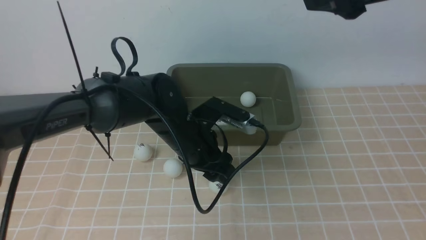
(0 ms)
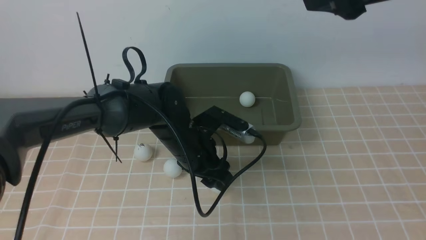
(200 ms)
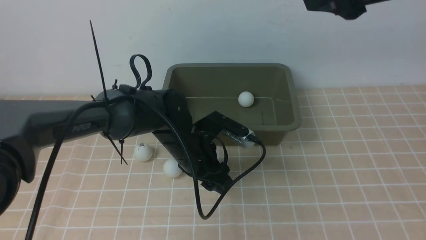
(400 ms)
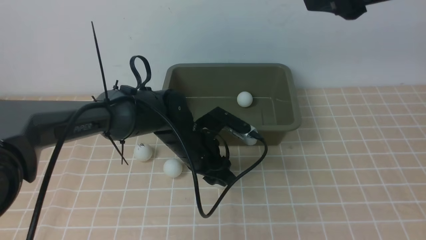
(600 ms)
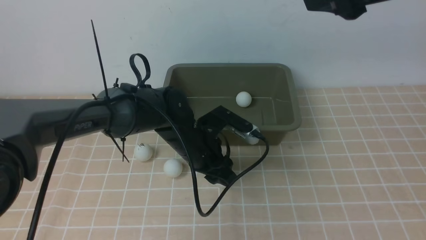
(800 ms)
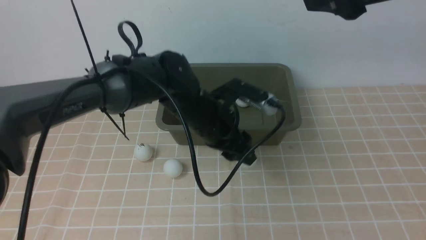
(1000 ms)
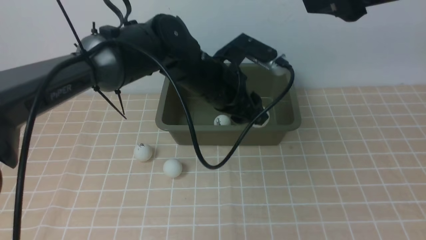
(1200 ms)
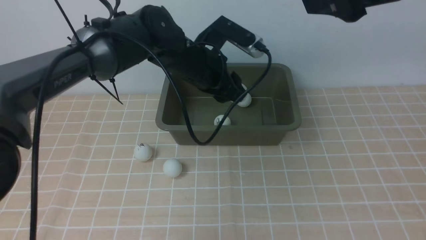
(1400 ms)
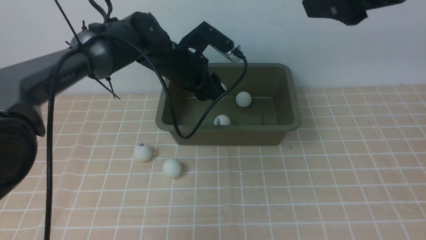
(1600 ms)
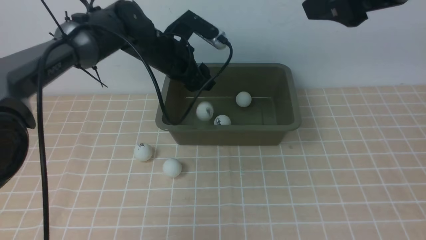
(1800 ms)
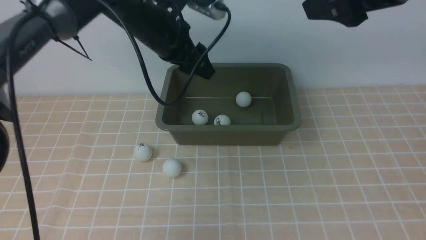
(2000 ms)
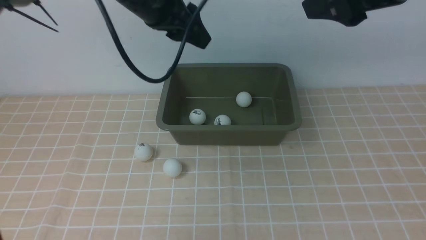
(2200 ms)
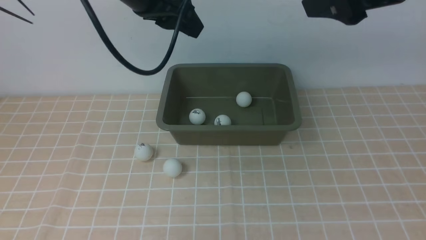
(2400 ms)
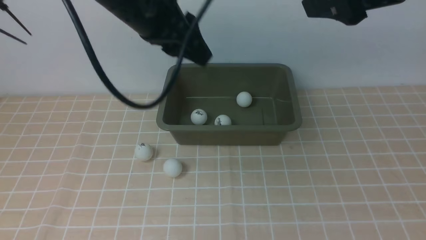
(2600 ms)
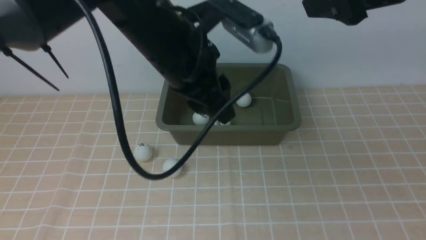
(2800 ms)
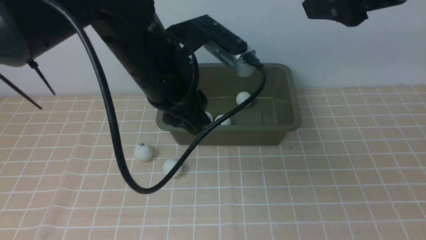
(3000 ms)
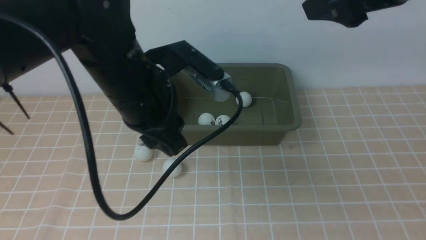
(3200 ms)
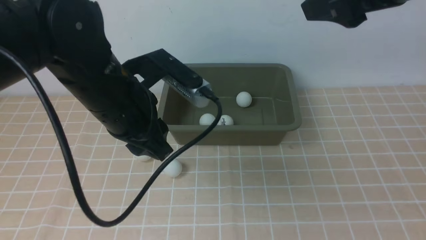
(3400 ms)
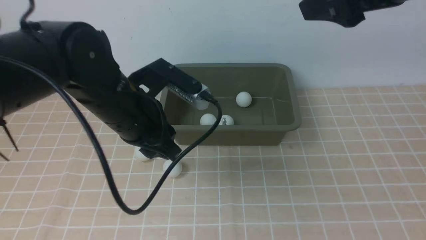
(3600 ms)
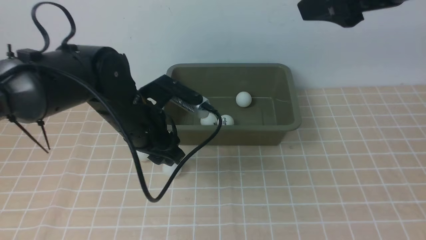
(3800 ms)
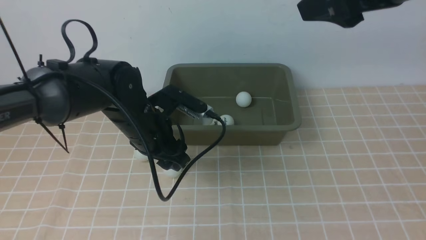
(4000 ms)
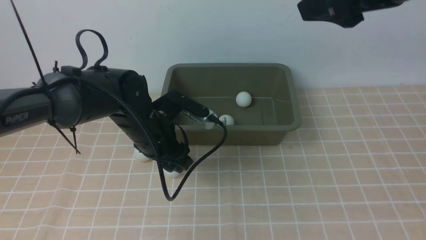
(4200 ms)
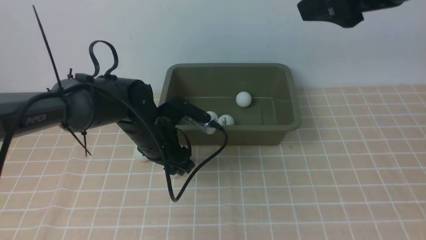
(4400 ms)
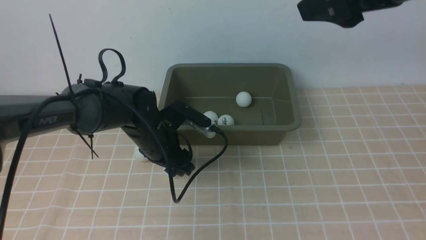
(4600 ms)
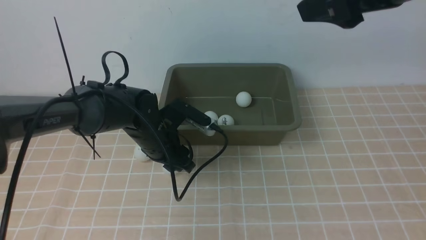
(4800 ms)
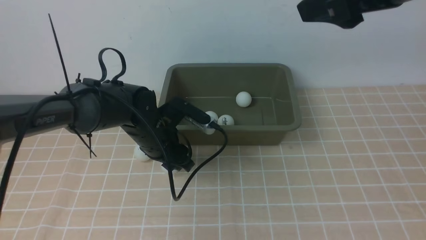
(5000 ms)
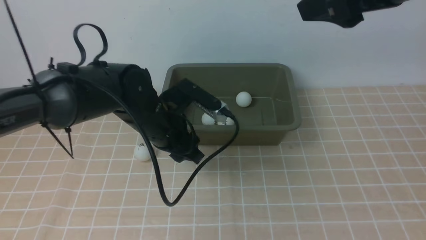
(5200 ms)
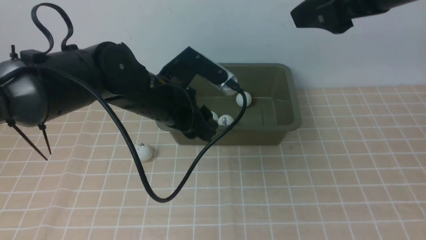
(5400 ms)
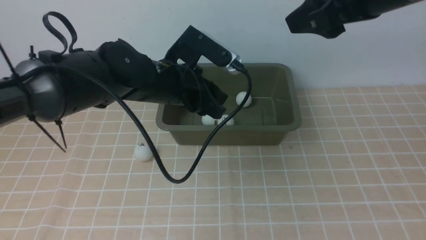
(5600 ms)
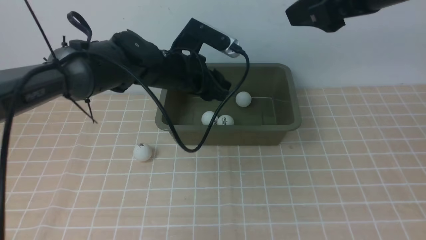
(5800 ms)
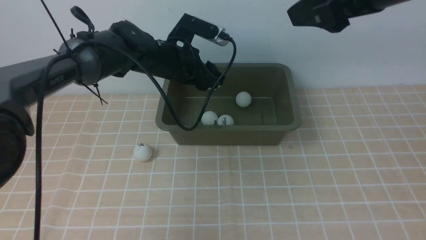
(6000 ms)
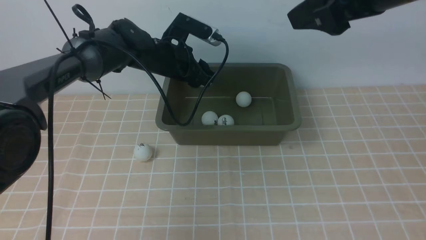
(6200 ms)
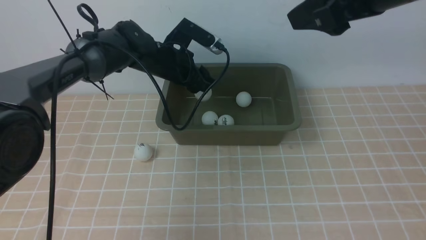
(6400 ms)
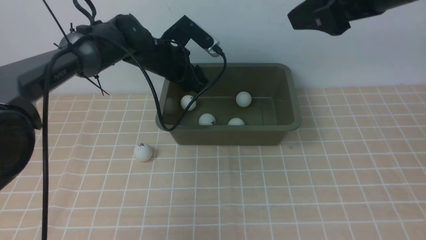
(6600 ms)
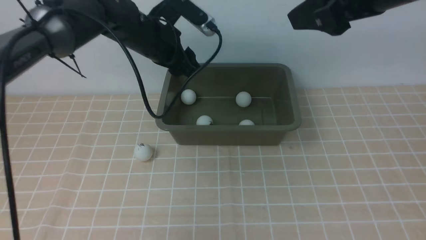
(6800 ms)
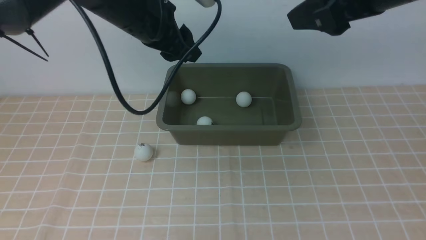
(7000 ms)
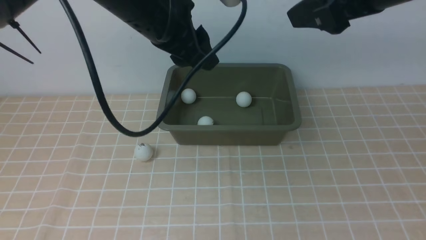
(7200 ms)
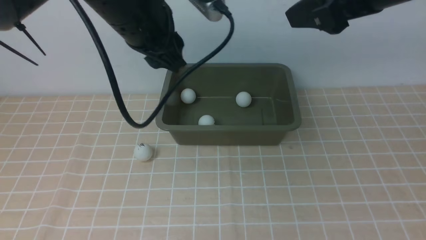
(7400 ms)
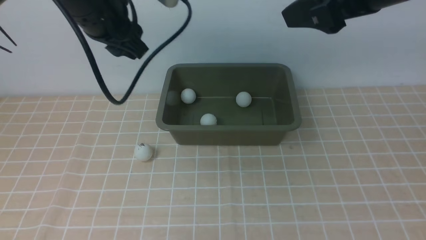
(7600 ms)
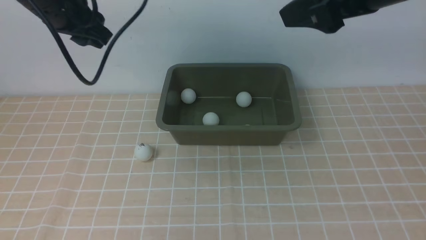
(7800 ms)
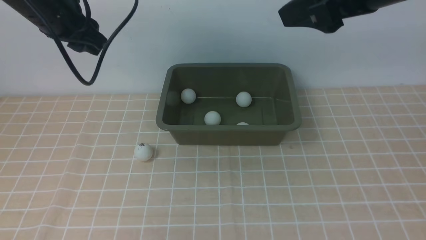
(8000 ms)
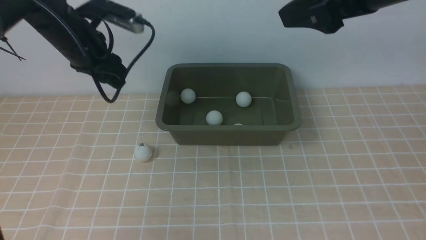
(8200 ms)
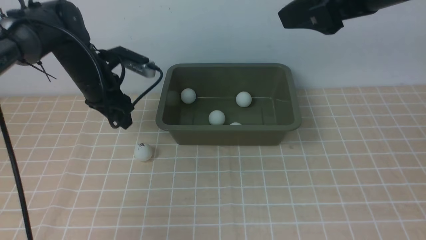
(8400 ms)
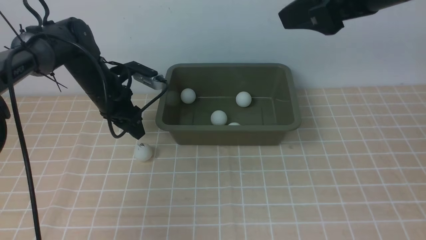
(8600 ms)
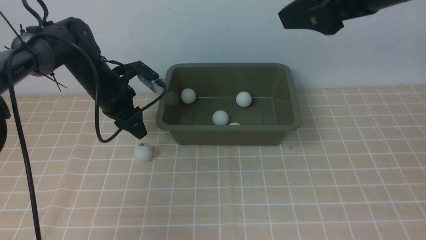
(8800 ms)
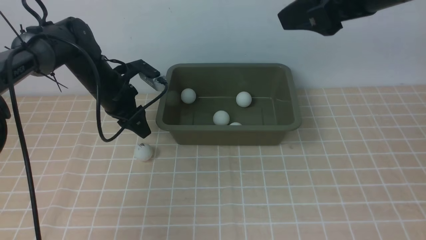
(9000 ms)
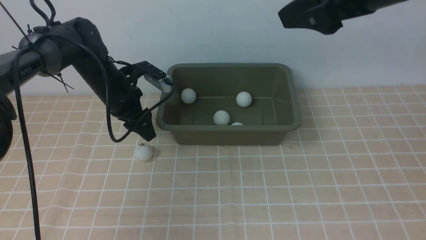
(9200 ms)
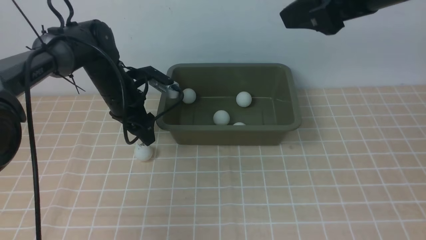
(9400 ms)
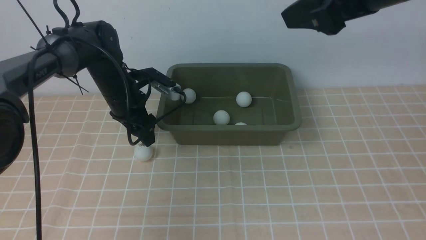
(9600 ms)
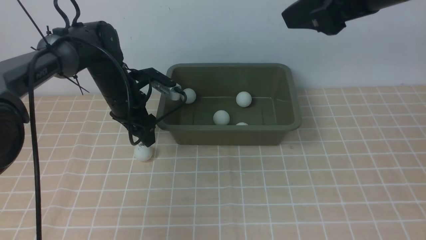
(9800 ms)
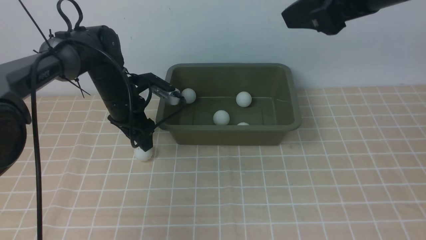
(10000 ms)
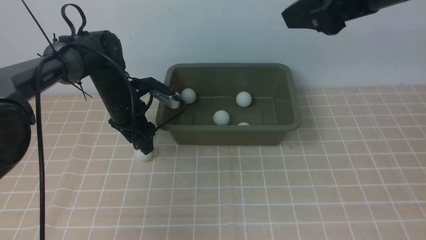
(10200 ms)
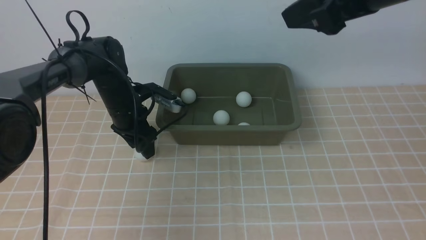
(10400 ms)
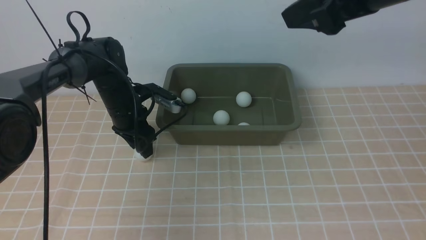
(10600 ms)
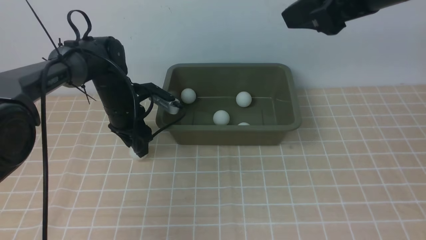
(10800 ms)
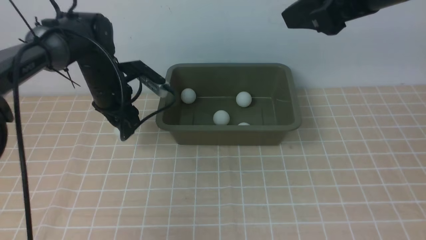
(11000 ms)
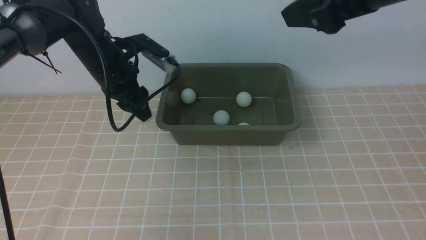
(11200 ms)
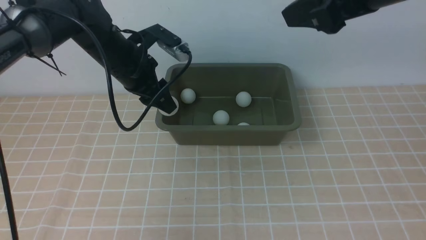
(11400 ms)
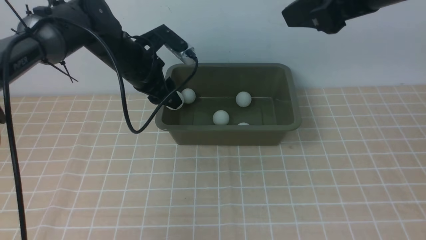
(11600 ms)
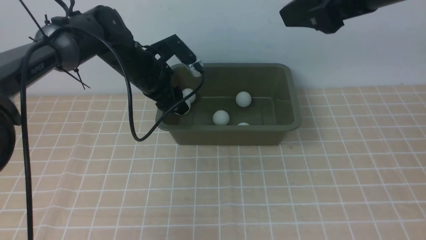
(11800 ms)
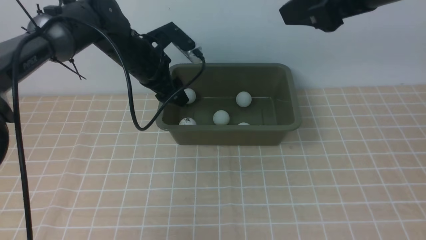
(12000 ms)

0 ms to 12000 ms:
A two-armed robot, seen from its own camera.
Step, 1400 ms to 2200 ms: use the left arm to put the table tennis ball into the box.
Step, 2400 ms to 5000 ms: use the left arm to clamp the table tennis ball closest to it.
Step, 5200 ms to 6800 ms: use the left arm to put the table tennis ball into the box.
Step, 7000 ms to 11000 ms: use the left arm to clamp the table tennis ball closest to it.
0 ms to 1600 ms: The left gripper moves forward and upward, about 15 cm.
1600 ms to 3000 ms: The left gripper moves backward and upward, roughly 20 cm, and closes its fingers.
3000 ms to 4400 ms: The left gripper goes some 15 cm downward, and opens.
4400 ms to 6000 ms: The left gripper is displaced forward and upward by approximately 10 cm, and closes.
6000 ms to 7600 ms: The left gripper moves upward, to the left and backward, some 20 cm.
7600 ms to 9000 ms: The left gripper travels downward by about 20 cm.
9000 ms to 10400 ms: There are only small adjustments of the grippers.
10400 ms to 12000 ms: The left gripper heads upward, covering about 10 cm, and closes, then opens again.

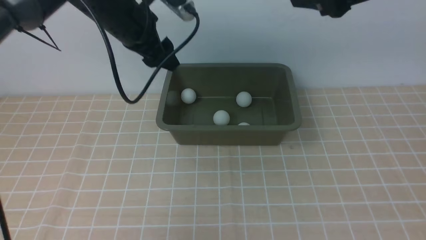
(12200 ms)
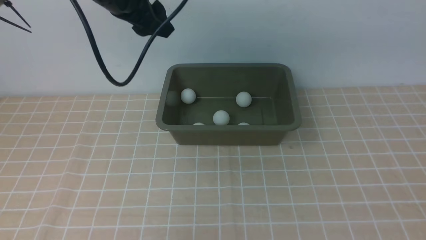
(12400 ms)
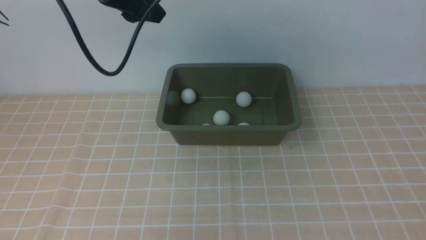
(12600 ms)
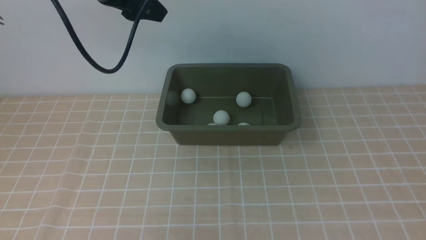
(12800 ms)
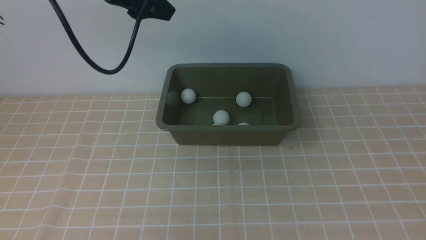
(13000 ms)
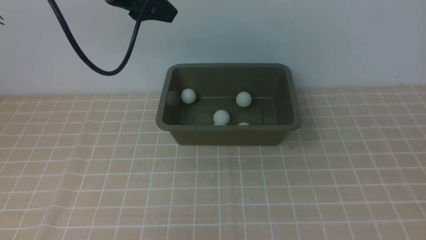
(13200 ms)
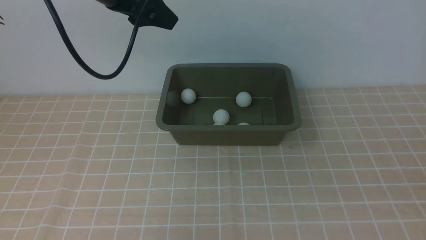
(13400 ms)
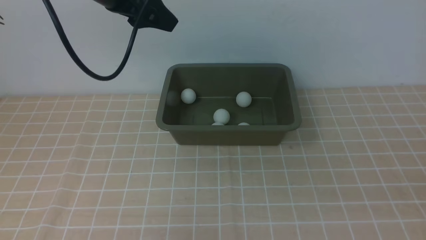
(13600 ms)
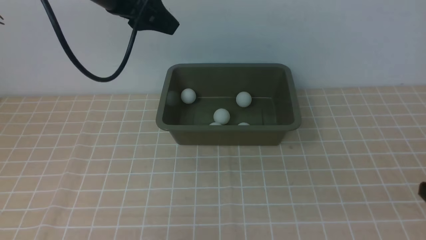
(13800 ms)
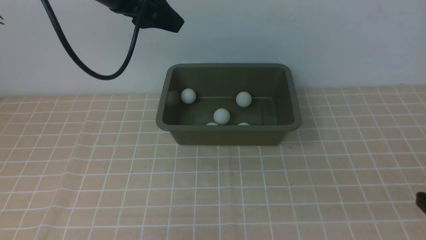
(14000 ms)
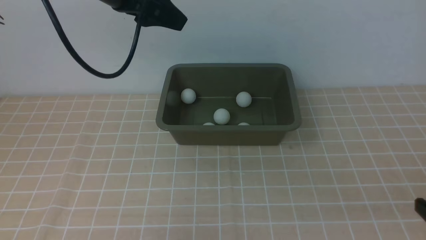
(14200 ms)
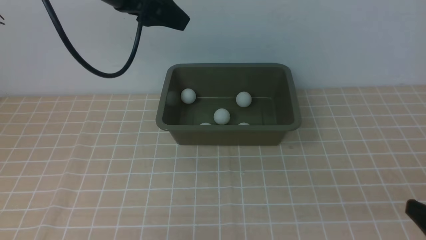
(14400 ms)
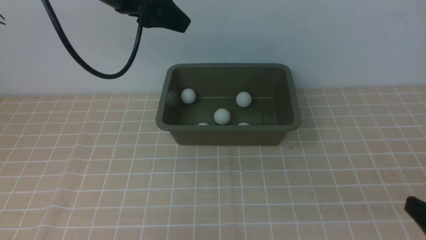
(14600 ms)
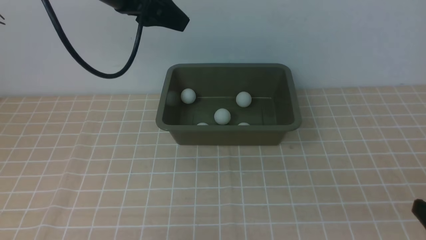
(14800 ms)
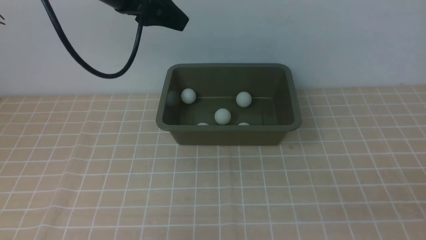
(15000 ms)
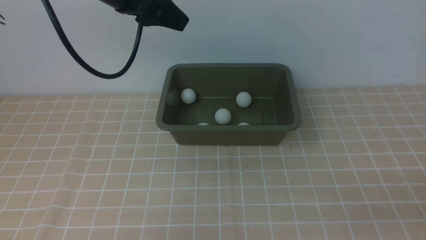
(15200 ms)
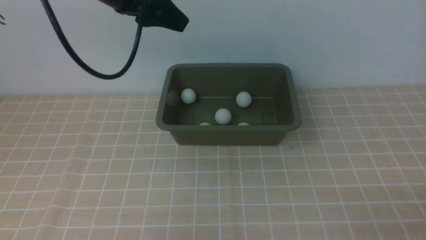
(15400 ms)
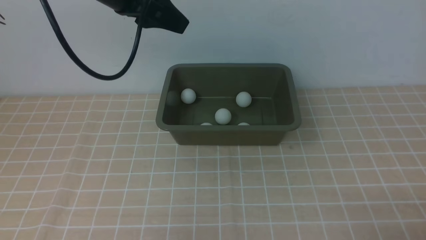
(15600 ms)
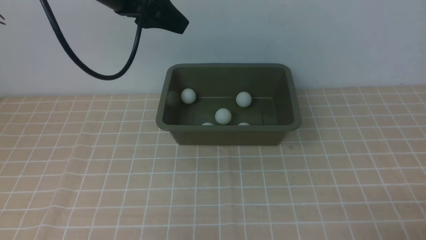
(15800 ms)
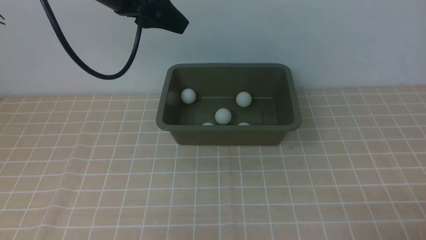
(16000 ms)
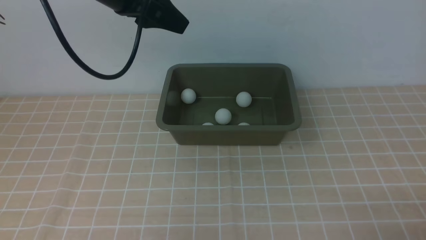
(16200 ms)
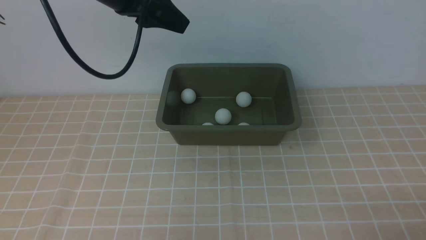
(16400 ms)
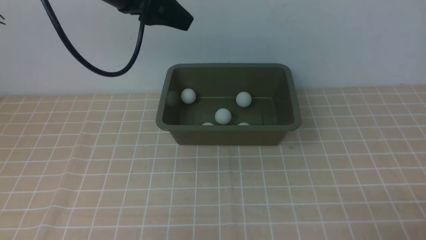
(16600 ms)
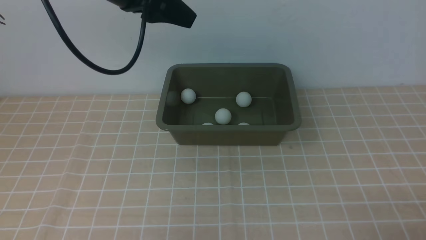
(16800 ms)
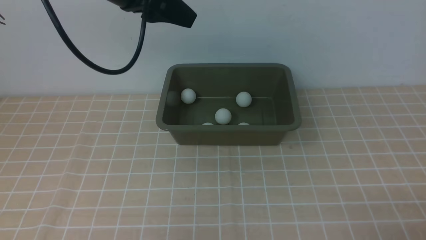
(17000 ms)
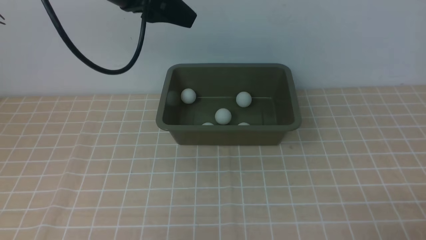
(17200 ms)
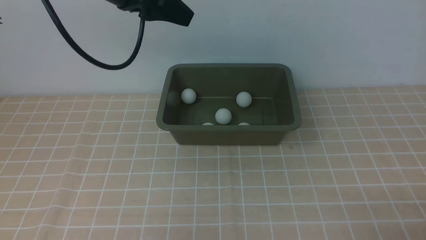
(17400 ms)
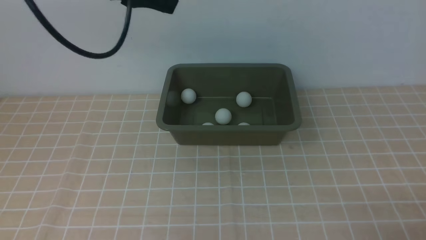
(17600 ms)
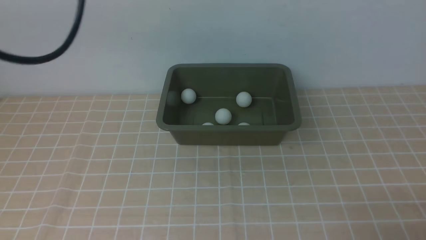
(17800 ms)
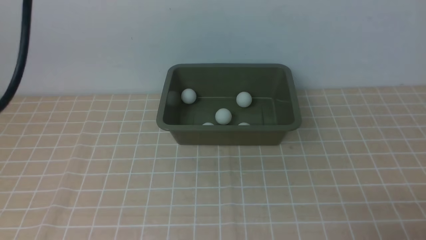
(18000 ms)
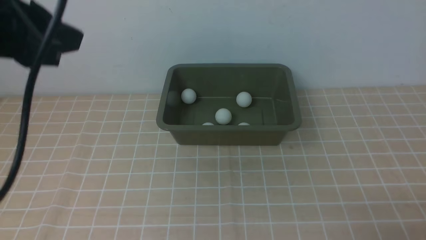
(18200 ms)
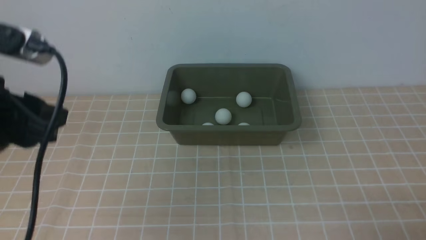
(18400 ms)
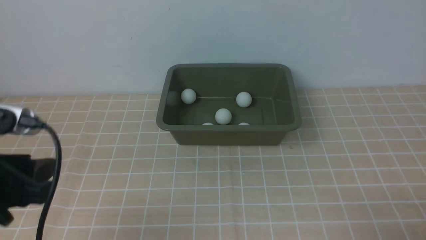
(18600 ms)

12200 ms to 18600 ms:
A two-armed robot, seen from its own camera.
12200 ms to 13800 ms: The left gripper travels upward by about 5 cm. The right gripper moves downward, backward and to the right, roughly 30 cm, and closes.
13800 ms to 15400 ms: The right gripper travels downward by approximately 10 cm; the left gripper closes.
15400 ms to 17000 ms: There are only small adjustments of the grippers.
17000 ms to 18600 ms: The left gripper goes some 30 cm backward, downward and to the left.
